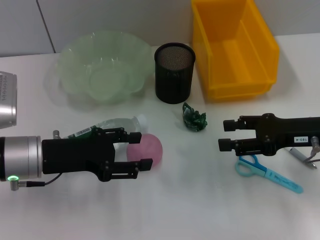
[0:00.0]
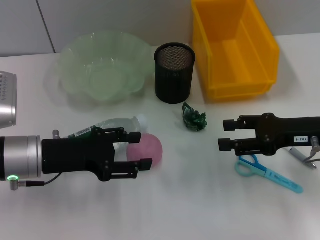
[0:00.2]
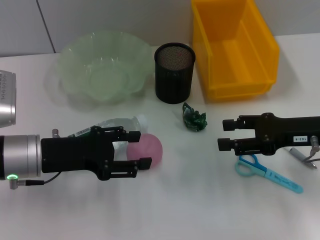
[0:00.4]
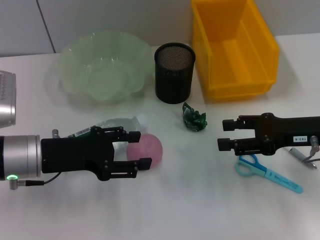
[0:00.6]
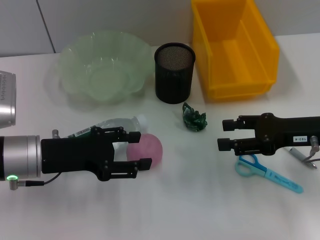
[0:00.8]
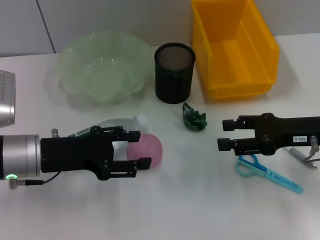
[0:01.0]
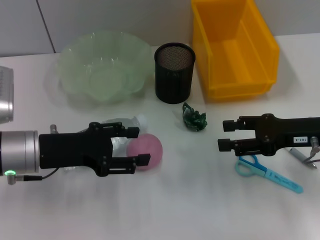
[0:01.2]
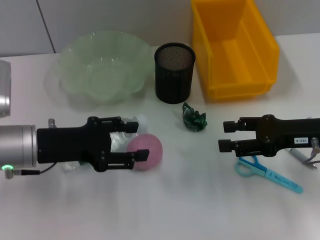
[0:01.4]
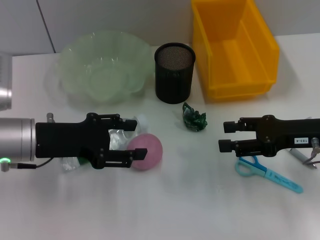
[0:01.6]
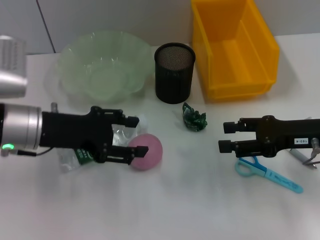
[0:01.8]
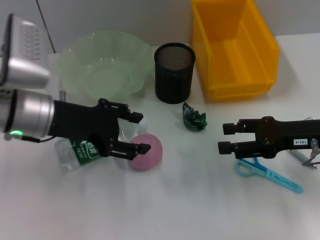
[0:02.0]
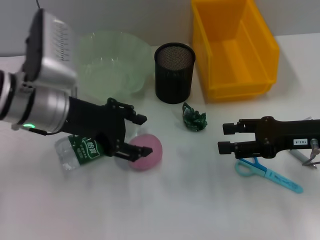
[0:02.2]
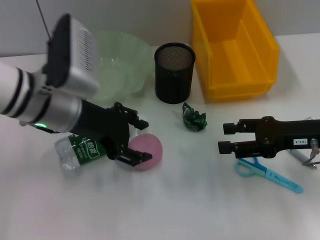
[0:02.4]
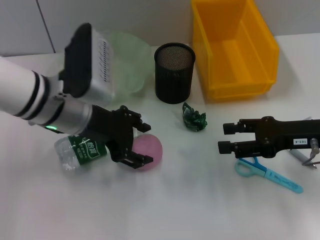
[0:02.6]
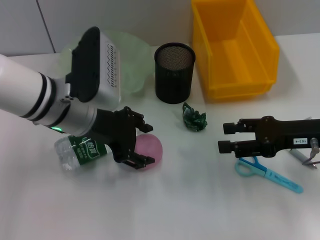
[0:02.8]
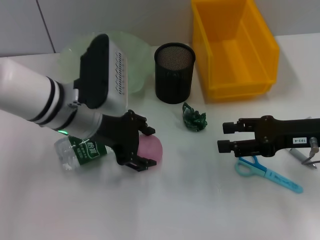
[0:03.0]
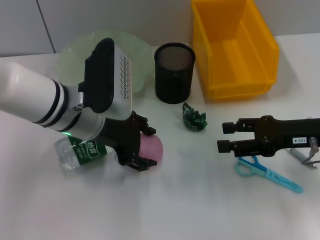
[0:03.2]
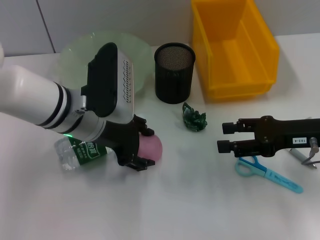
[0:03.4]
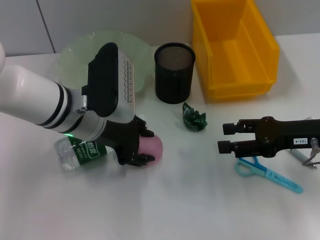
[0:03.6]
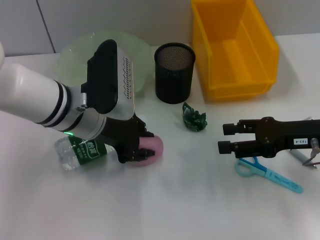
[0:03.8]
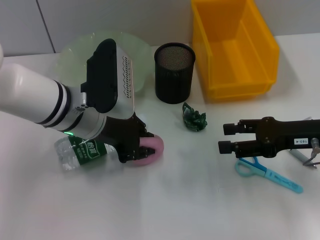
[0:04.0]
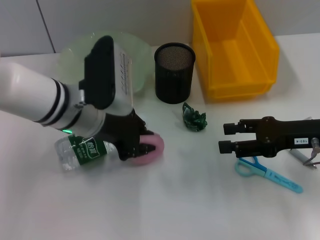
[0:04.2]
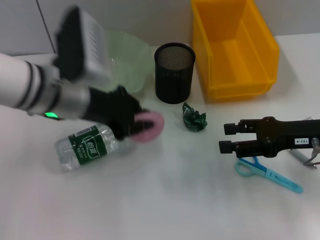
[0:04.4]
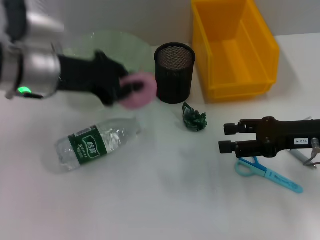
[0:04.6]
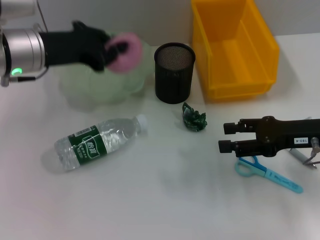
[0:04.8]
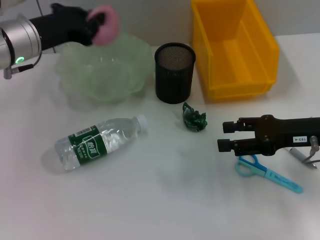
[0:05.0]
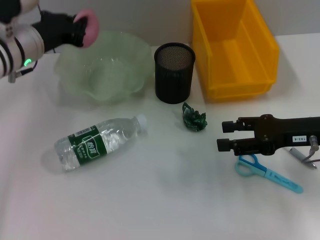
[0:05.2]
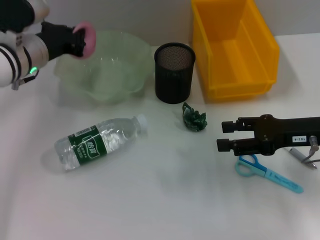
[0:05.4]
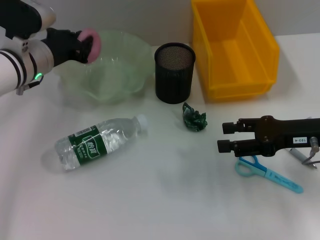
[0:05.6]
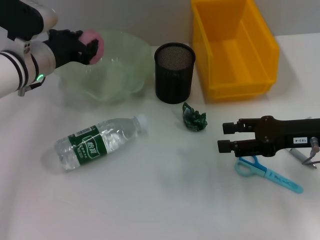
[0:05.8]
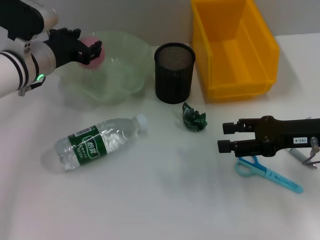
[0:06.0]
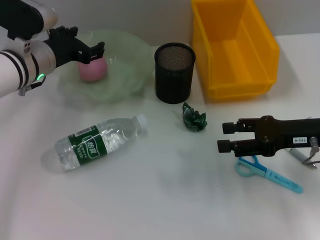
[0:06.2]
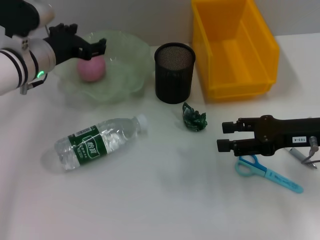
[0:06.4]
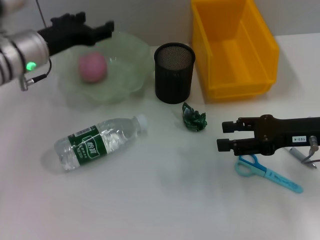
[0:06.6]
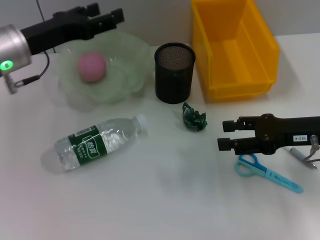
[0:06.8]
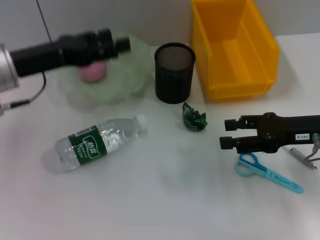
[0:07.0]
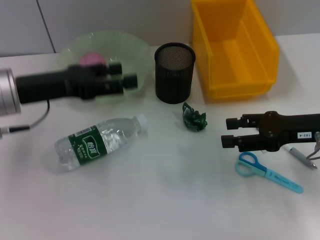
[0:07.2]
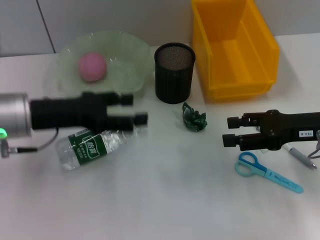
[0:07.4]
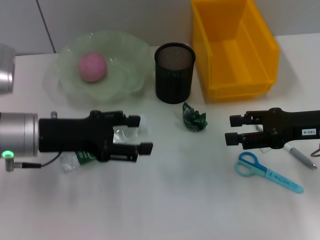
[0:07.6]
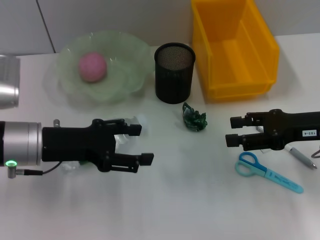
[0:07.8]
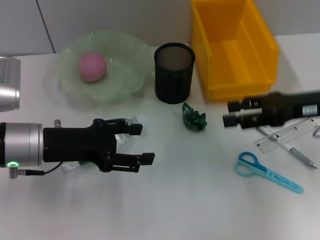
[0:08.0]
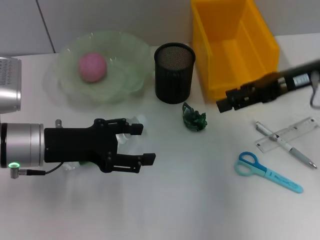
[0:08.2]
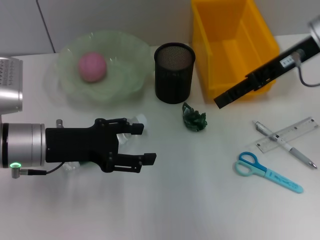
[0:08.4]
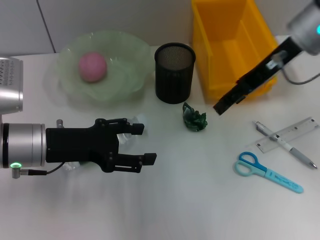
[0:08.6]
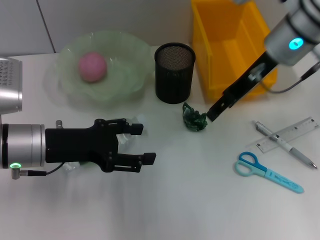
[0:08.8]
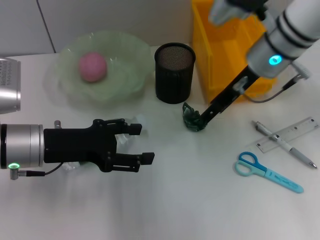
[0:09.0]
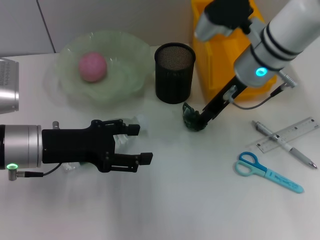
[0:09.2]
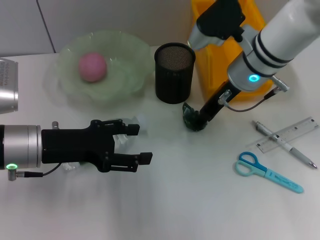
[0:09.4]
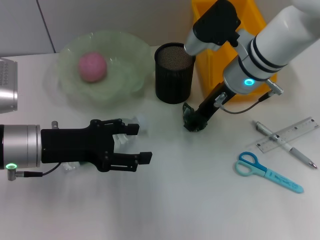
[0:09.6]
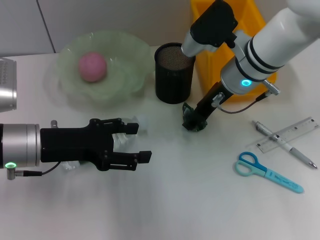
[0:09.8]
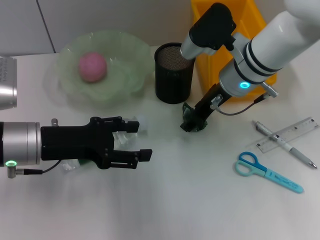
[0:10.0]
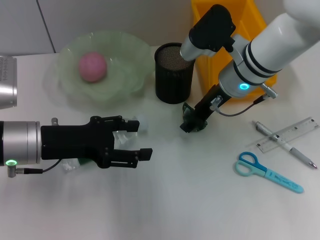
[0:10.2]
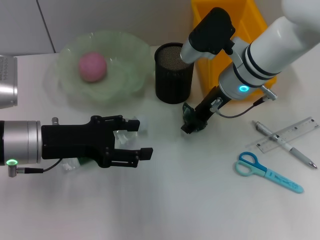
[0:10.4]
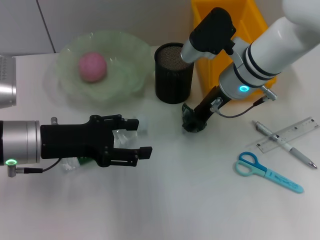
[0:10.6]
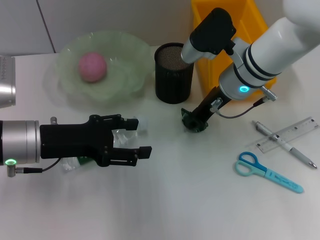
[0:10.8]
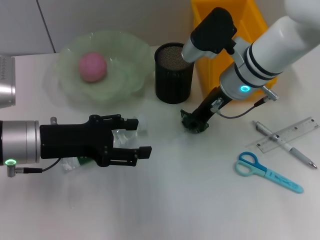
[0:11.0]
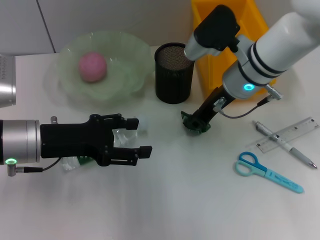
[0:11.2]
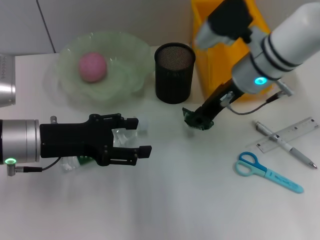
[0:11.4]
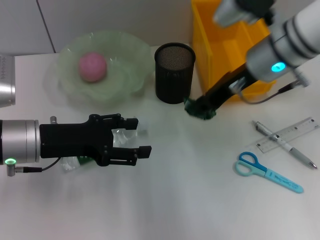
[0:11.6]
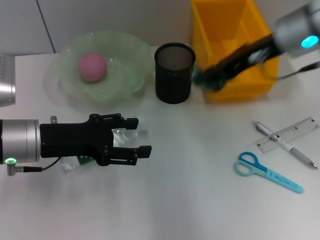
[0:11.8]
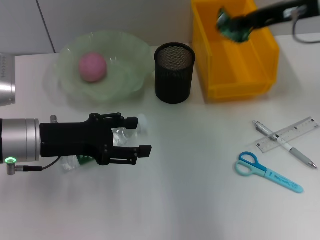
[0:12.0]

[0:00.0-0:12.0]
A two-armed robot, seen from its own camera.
Step, 0:00.0 to 0:04.0: Grab the peach with the left hand.
Step, 0:04.2 to 0:06.2: Place the peach into the fruit bowl with the left hand.
Step, 0:06.4 to 0:10.8: Grab the plastic with the right hand.
0:00.0 to 0:01.6: The grippers move only a little.
0:01.6 to 0:03.0: The left gripper goes some 10 cm to the right.
0:03.0 to 0:04.4: The left gripper closes its fingers.
0:04.4 to 0:06.0: The left gripper travels forward and to the left by some 10 cm, and opens its fingers.
0:06.0 to 0:07.6: The left gripper heads backward, covering some 10 cm, and opens its fingers.
0:07.6 to 0:09.0: The right gripper shifts approximately 20 cm to the left, forward and upward.
0:09.0 to 0:10.4: The right gripper goes roughly 5 cm downward.
0:10.4 to 0:12.0: The right gripper heads to the right and upward, covering roughly 15 cm, and closes its fingers.

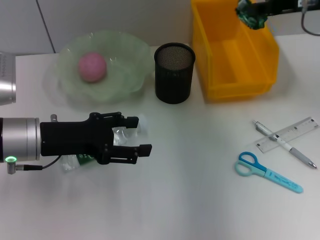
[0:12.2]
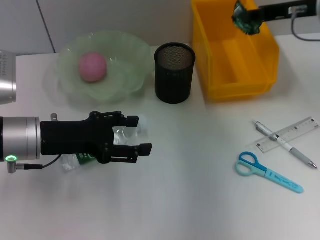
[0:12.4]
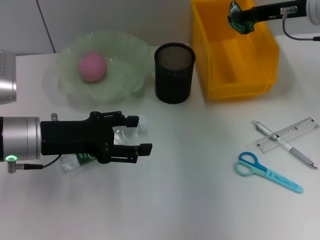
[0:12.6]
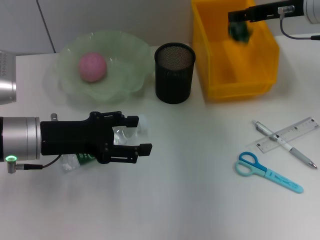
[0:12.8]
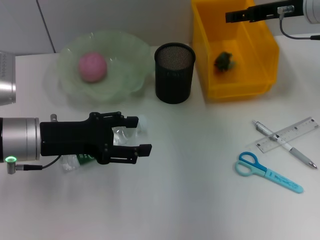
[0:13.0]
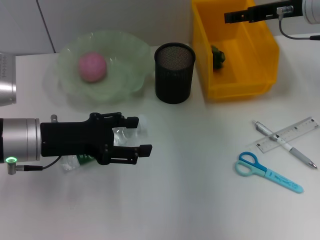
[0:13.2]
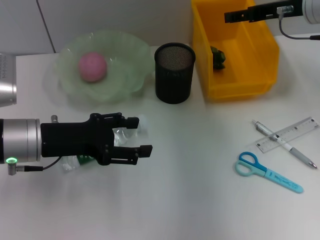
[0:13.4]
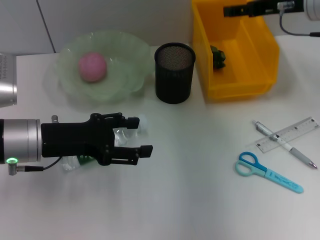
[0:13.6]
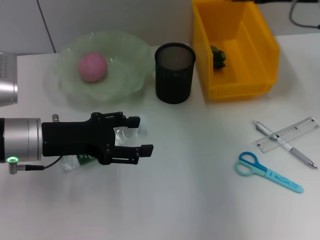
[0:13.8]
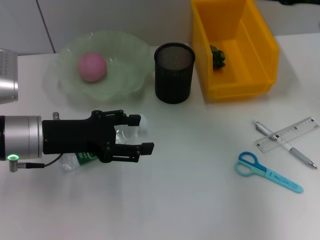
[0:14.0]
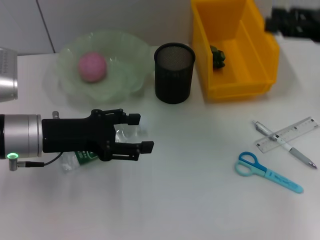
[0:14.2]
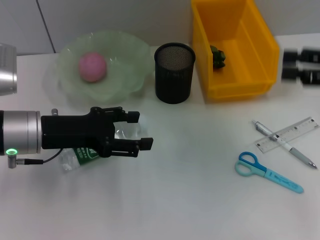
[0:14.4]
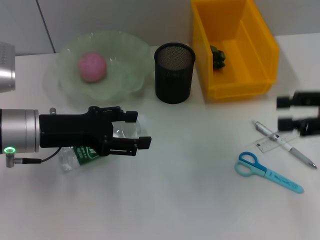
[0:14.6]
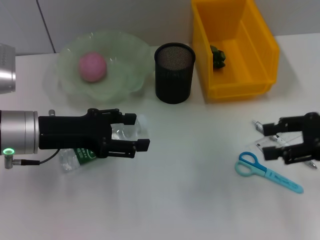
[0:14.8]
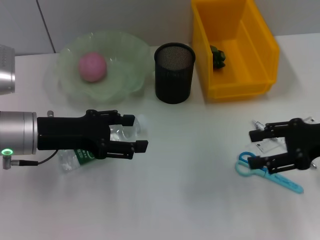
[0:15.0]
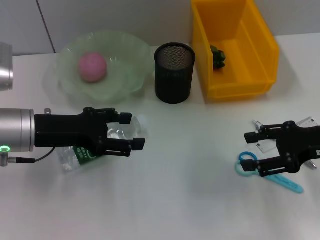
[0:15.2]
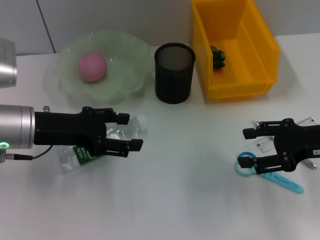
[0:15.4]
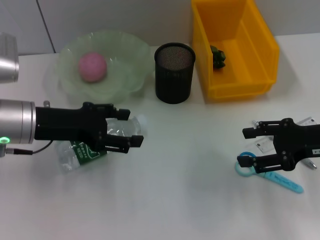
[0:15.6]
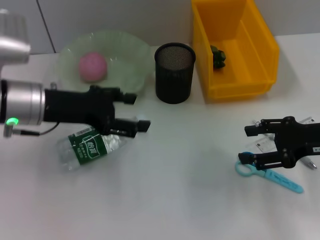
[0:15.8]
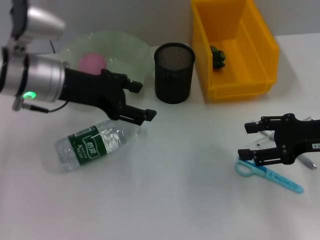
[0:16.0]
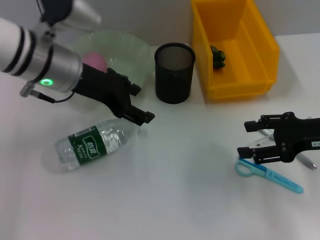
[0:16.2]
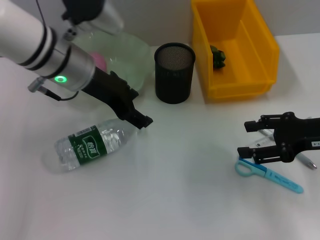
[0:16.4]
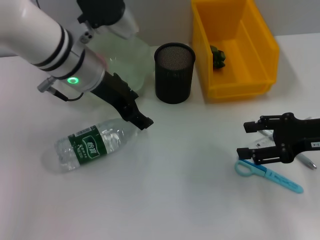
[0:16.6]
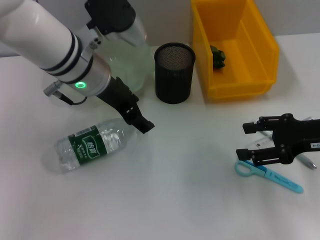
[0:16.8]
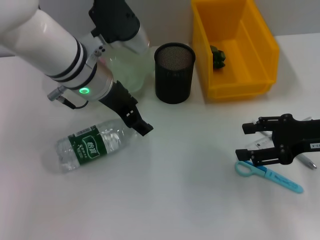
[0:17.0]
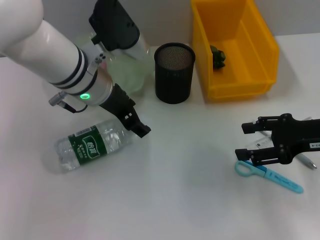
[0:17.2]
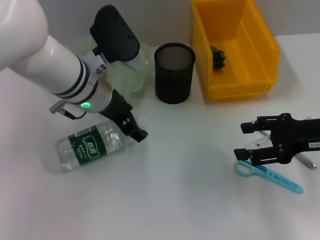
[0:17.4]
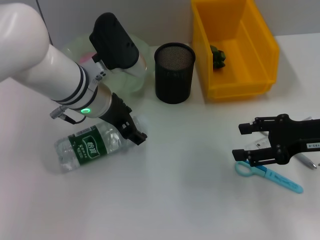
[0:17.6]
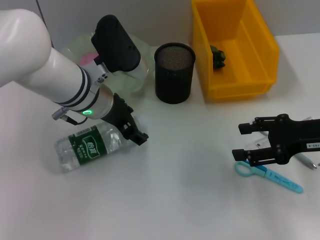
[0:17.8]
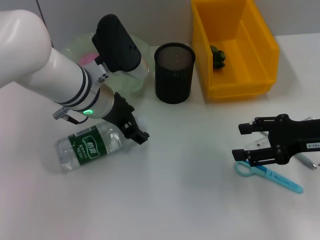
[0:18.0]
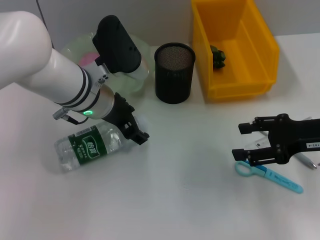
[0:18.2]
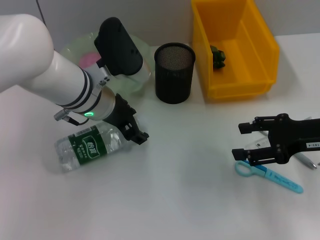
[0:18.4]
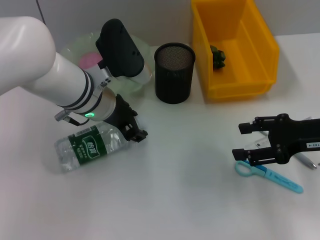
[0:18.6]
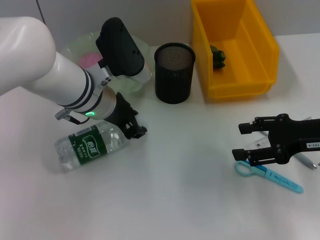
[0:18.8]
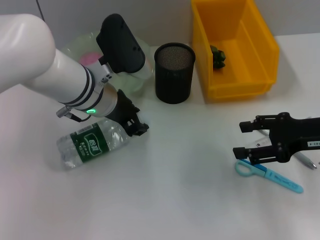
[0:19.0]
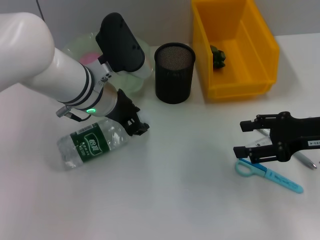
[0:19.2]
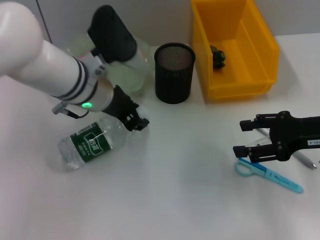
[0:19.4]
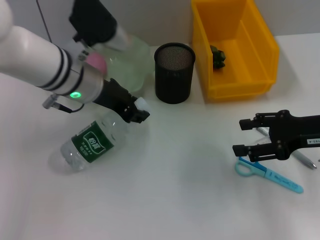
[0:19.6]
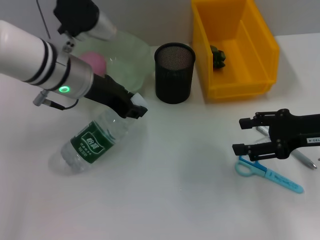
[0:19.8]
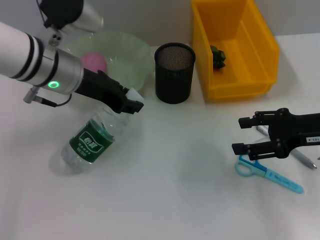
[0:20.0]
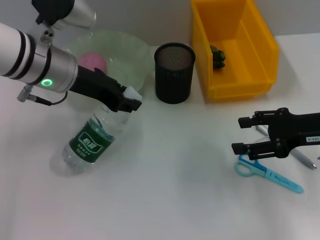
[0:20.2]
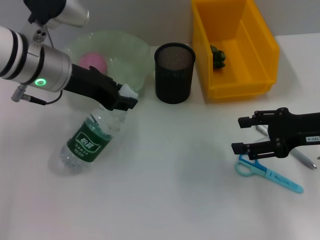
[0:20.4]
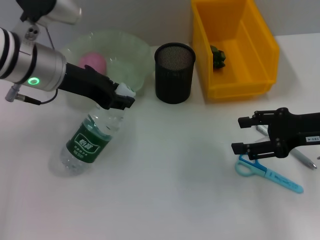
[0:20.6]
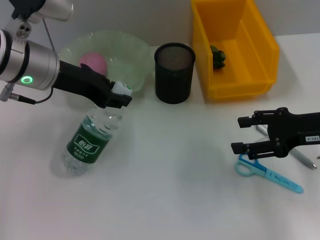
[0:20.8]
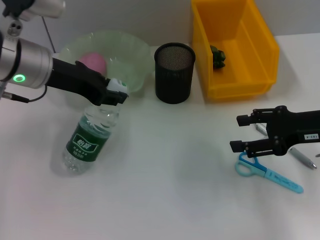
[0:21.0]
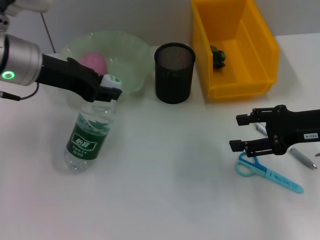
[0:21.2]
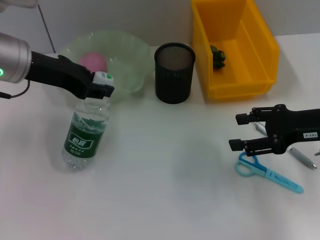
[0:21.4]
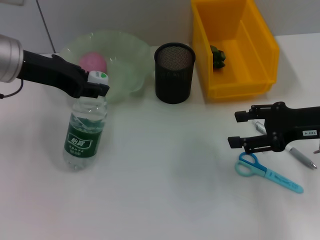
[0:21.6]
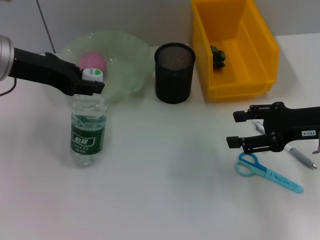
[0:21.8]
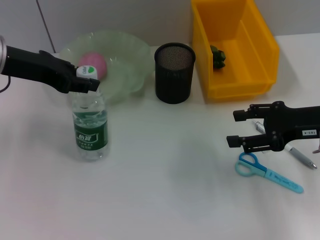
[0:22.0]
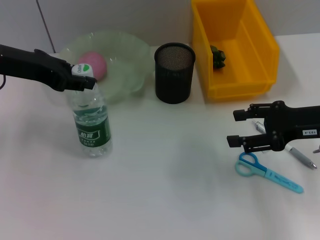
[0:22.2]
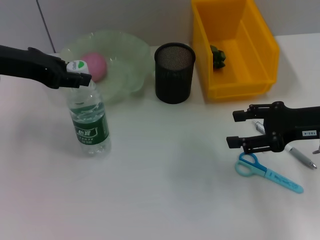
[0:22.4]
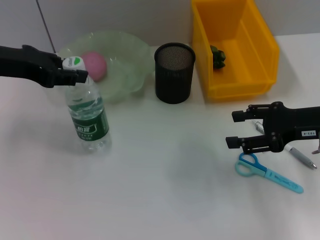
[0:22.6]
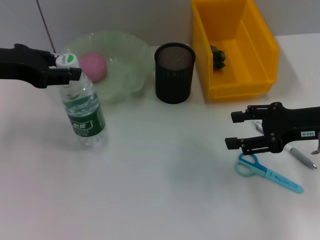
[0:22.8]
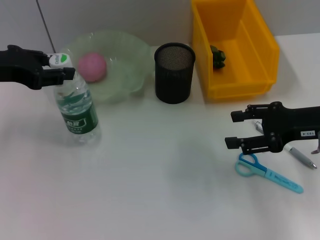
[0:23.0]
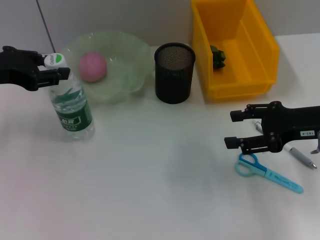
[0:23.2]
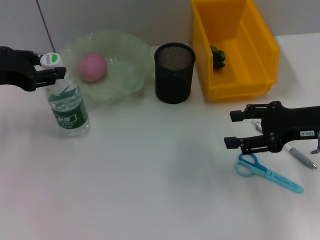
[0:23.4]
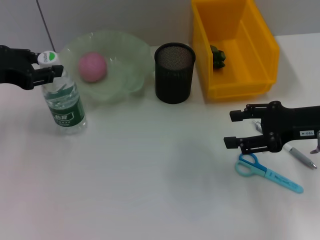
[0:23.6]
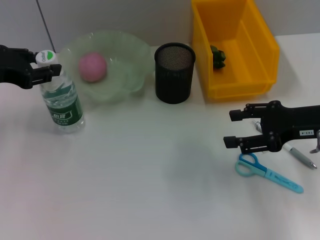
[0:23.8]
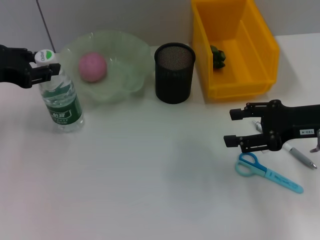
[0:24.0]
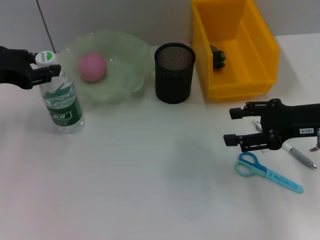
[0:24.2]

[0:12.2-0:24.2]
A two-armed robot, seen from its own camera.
Step, 0:13.0 to 0:18.6: Grab the water bottle with the left hand.
0:12.2 to 0:13.8: The right gripper opens its fingers.
0:13.8 to 0:15.2: The right gripper is displaced backward and downward by about 15 cm.
0:15.2 to 0:16.6: The left gripper moves to the right, upward and forward, about 15 cm.
0:16.6 to 0:18.2: The left gripper is displaced downward by some 5 cm.
0:18.2 to 0:19.8: The left gripper changes place by about 5 cm, and closes its fingers.
0:19.8 to 0:21.2: The left gripper travels to the left by about 5 cm.
0:21.2 to 0:22.6: The left gripper shifts some 5 cm to the left.
0:22.6 to 0:24.2: There are only small adjustments of the grippers.
